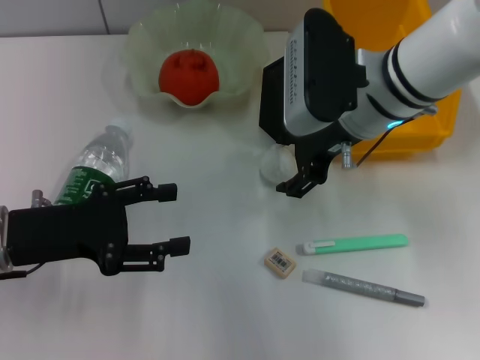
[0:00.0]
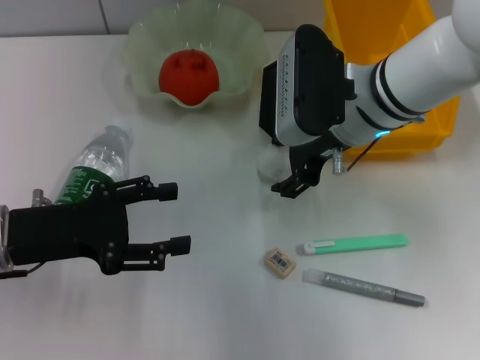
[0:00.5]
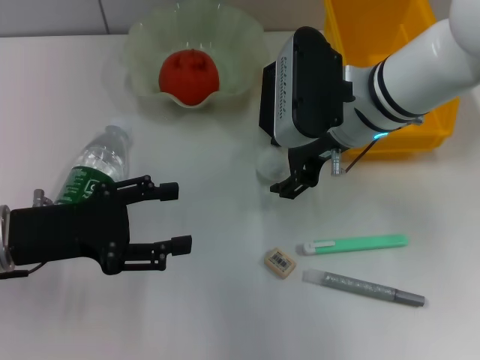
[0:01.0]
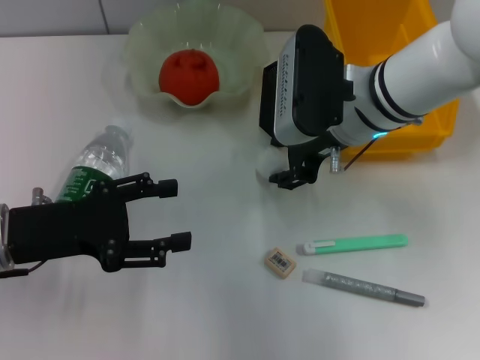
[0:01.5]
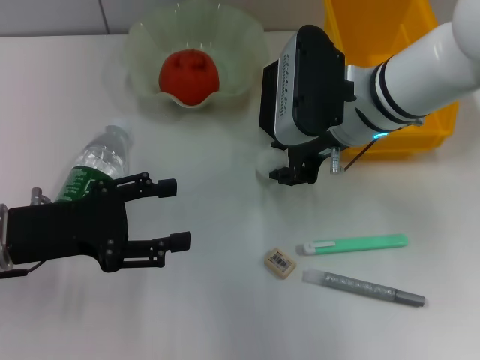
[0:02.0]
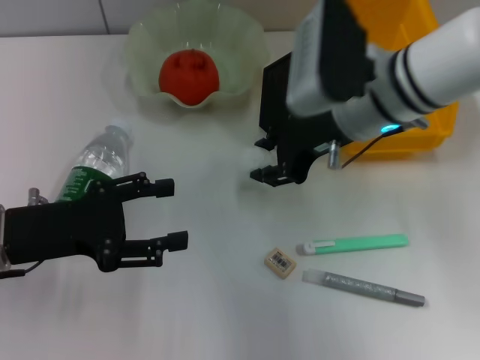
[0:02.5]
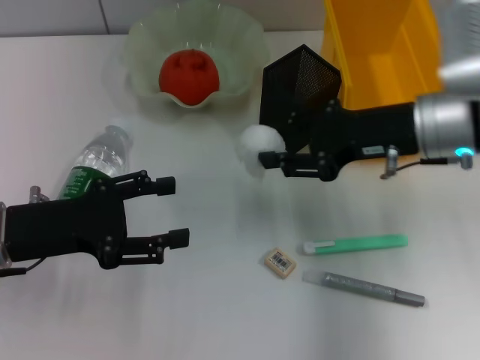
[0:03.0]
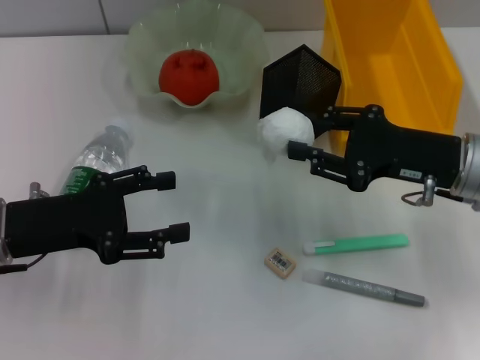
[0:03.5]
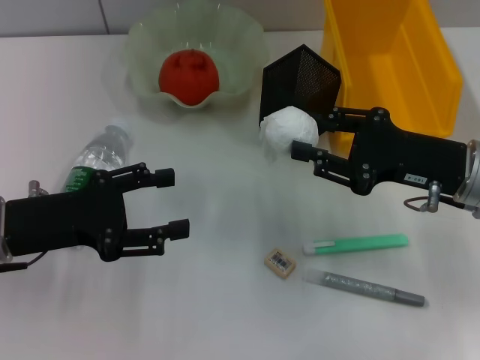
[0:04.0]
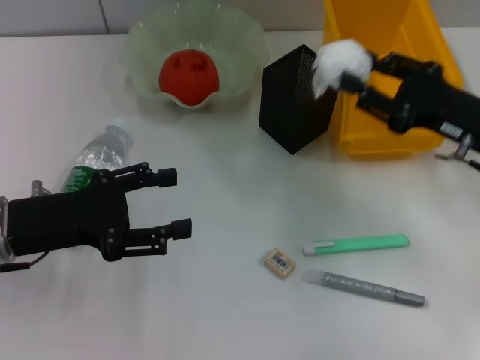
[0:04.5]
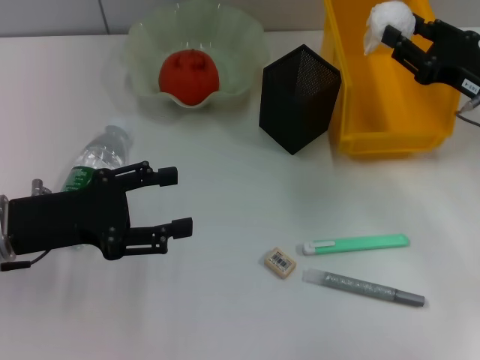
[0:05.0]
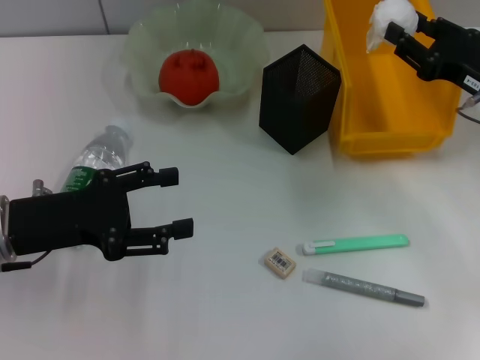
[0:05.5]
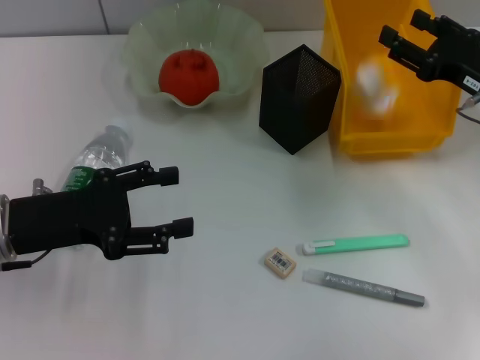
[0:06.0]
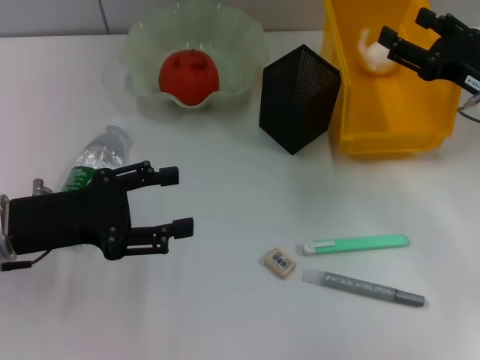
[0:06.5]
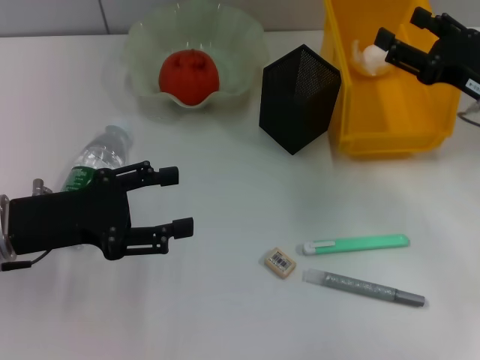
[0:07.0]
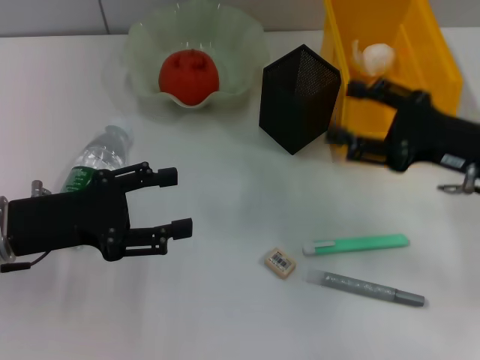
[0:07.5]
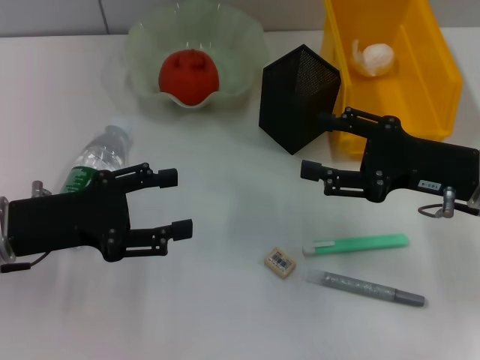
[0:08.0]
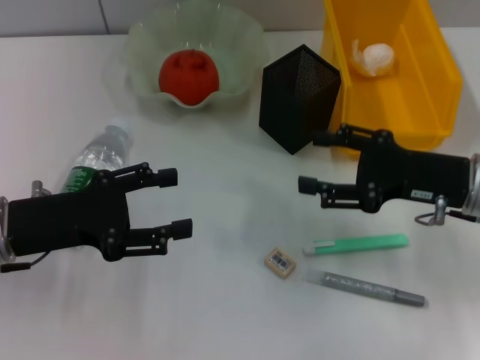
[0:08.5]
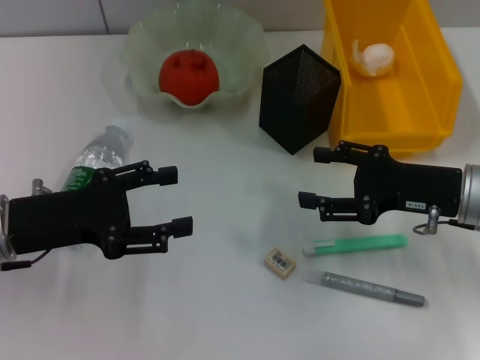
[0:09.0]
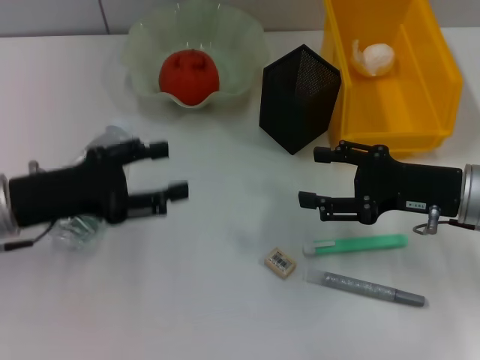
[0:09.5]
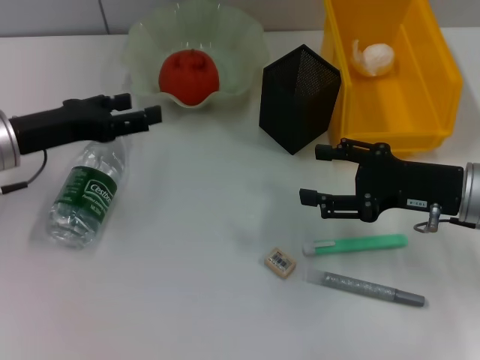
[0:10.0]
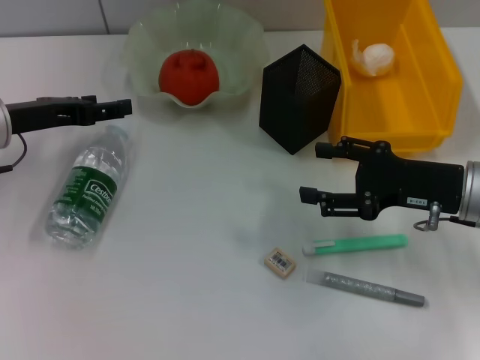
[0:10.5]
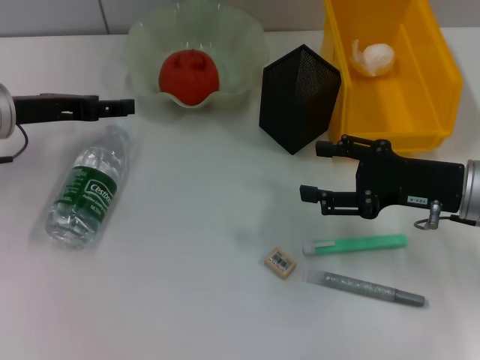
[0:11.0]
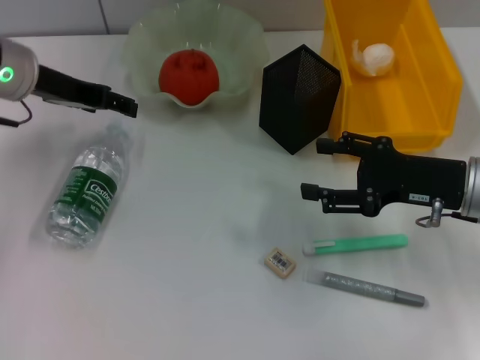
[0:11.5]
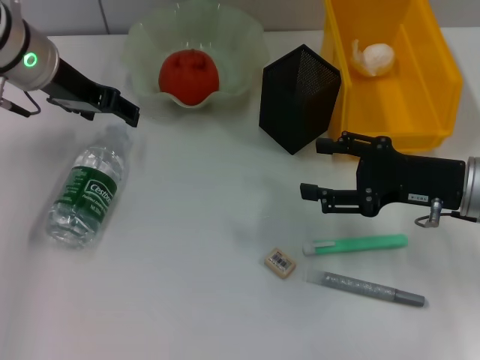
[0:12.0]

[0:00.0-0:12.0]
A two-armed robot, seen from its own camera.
Step, 0:01.5 to 0:06.0: Place the paper ball into the trash can with the right hand.
0:00.0 to 0:02.0: The right gripper closes up.
0:02.0 to 0:04.0: The right gripper goes some 15 cm to the right and backward.
0:04.0 to 0:06.0: The right gripper is displaced to the right and forward by approximately 10 cm.
0:06.0 to 0:08.0: The right gripper moves backward, roughly 5 cm, and opens.
0:08.0 to 0:10.0: The left gripper moves forward, approximately 10 cm.
0:10.0 to 0:12.0: The left gripper goes about 15 cm forward, upward and to the right.

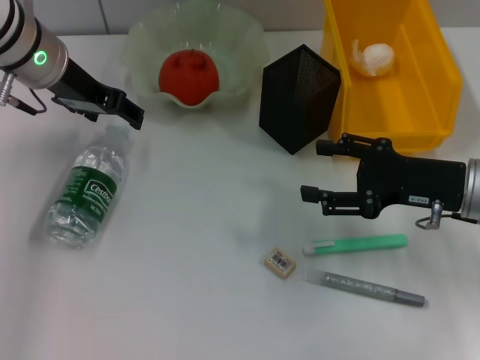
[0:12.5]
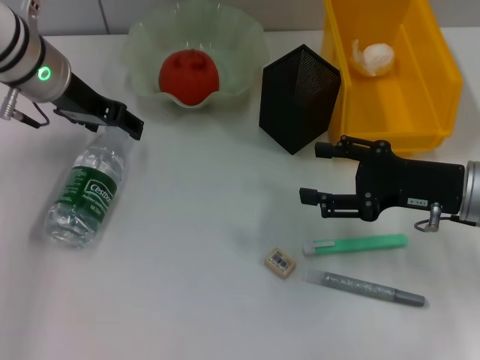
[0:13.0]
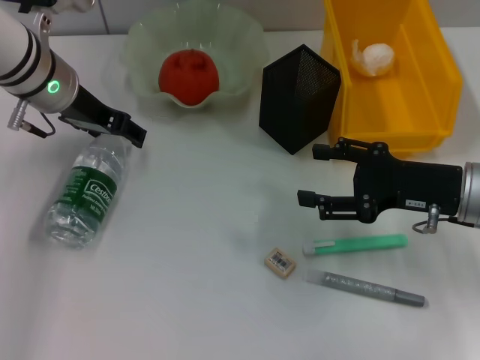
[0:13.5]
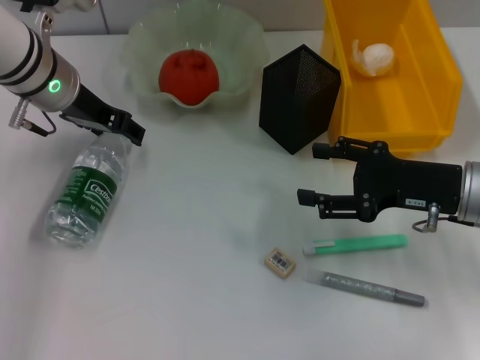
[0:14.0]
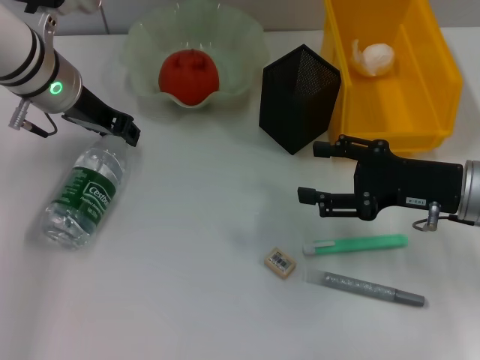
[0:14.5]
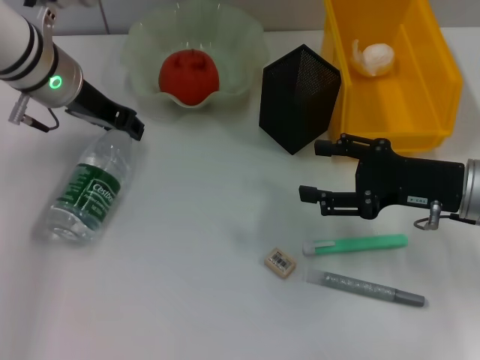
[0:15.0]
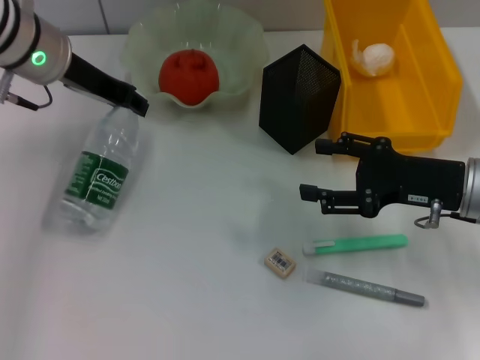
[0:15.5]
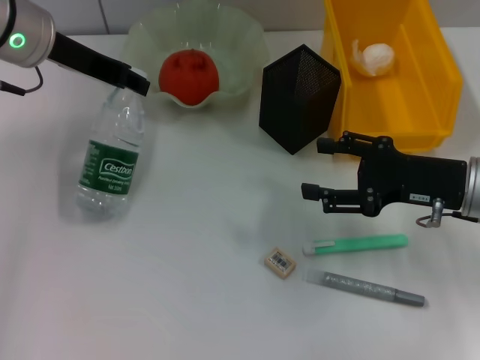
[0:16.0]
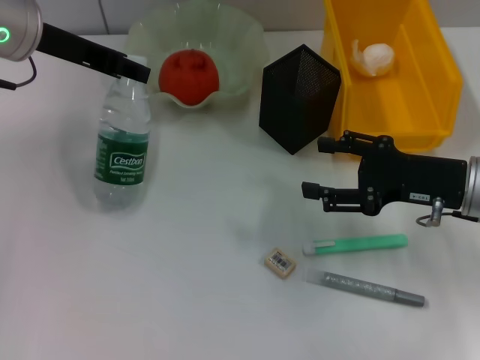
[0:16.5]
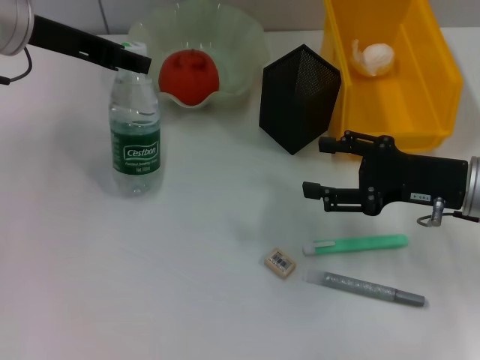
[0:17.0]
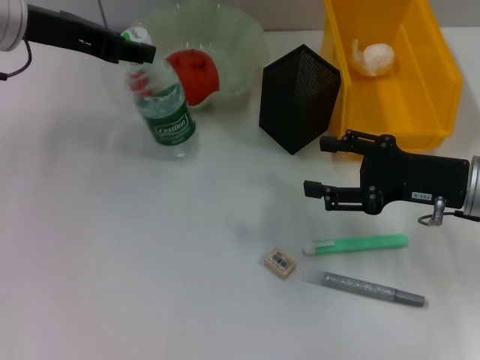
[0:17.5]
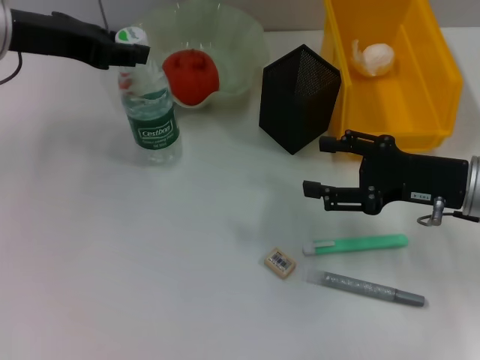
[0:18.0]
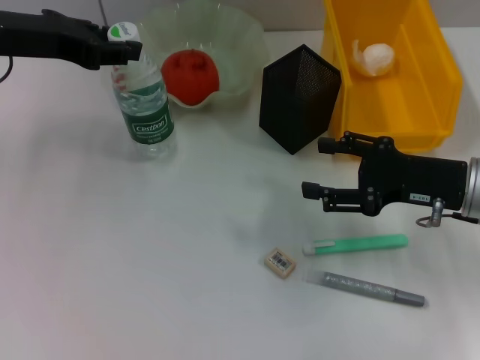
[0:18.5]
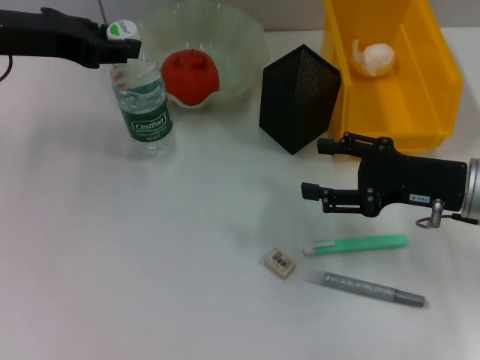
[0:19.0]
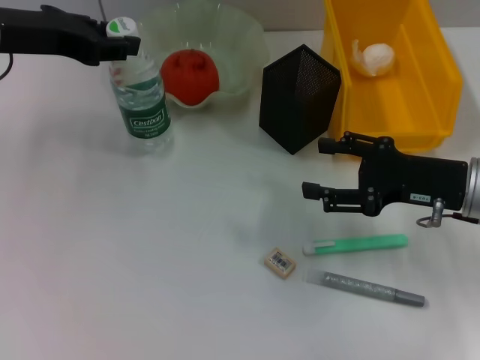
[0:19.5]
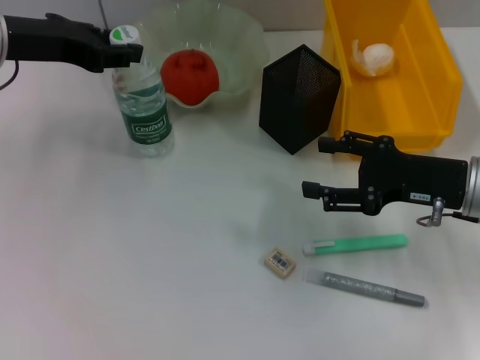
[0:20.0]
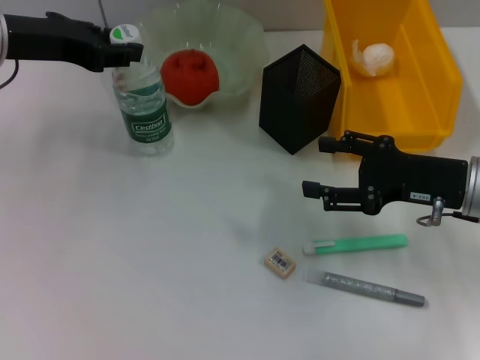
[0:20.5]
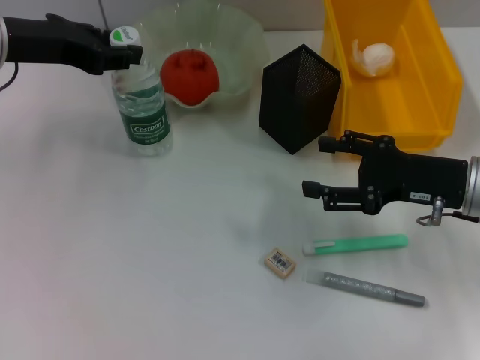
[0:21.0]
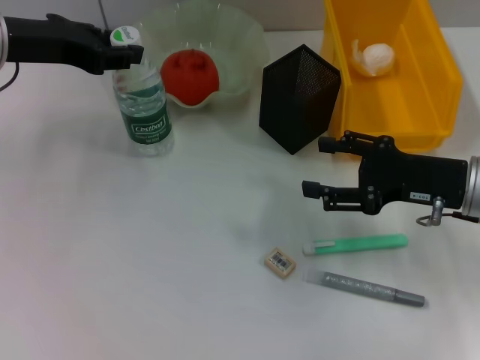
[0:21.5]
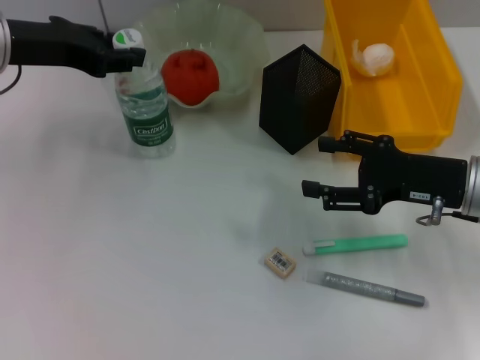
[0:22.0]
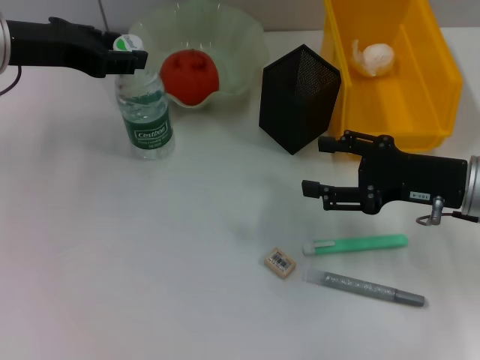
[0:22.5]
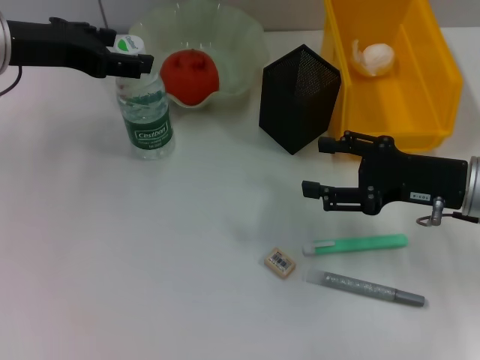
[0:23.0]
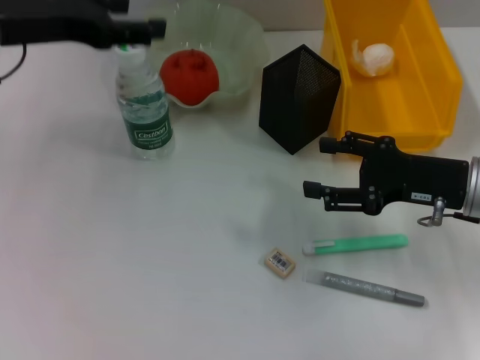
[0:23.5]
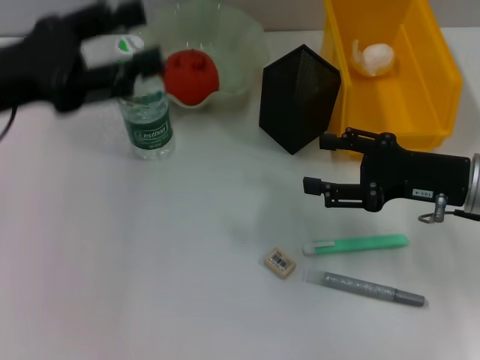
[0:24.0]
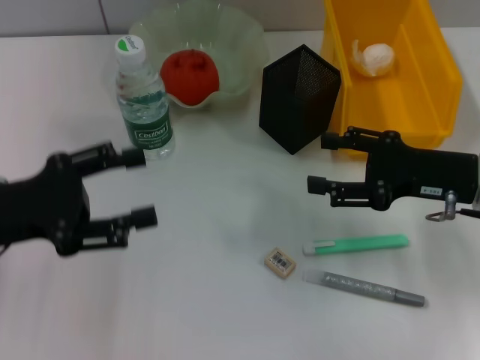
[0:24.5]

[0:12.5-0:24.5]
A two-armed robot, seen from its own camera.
Step, 0:14.5 to 0:22.5: Place the water bottle on the table with the left hand.
0:12.5 to 0:14.5: The left gripper closes up.
0:14.5 to 0:16.5: The left gripper goes about 5 cm upward.
0:16.5 to 0:18.5: The grippers make only small movements.
0:18.5 to 0:20.5: Neither gripper changes place.
0:20.5 to 0:22.5: The two grippers keep their place.
0:22.5 to 0:24.5: The left gripper shifts some 15 cm backward and downward, and opens its fingers.

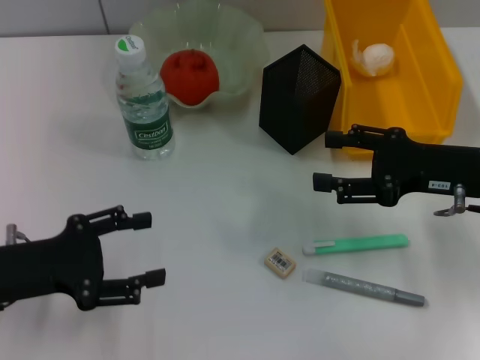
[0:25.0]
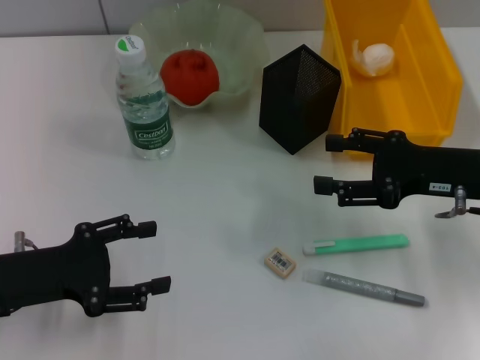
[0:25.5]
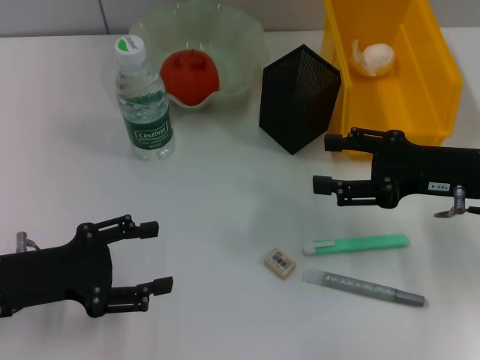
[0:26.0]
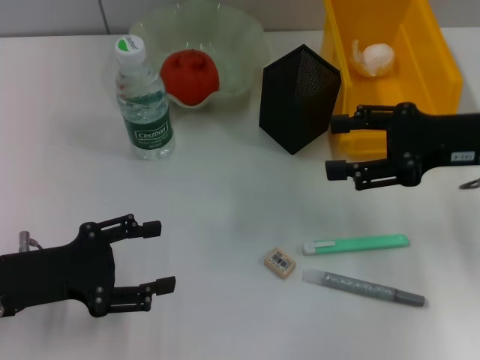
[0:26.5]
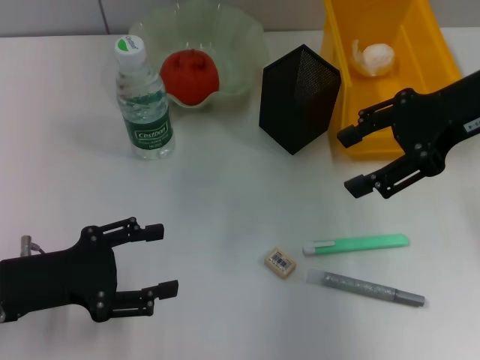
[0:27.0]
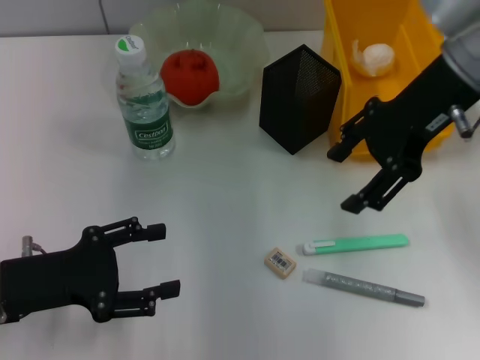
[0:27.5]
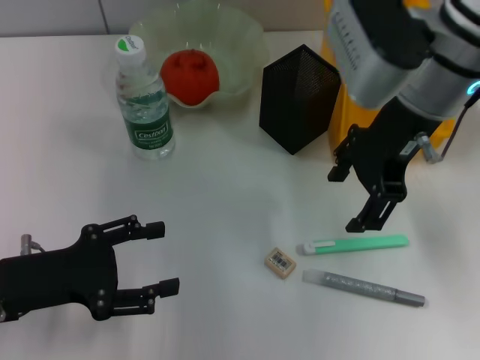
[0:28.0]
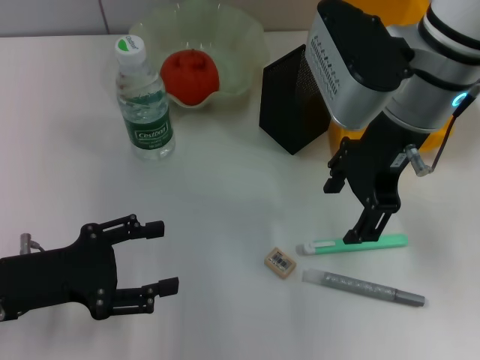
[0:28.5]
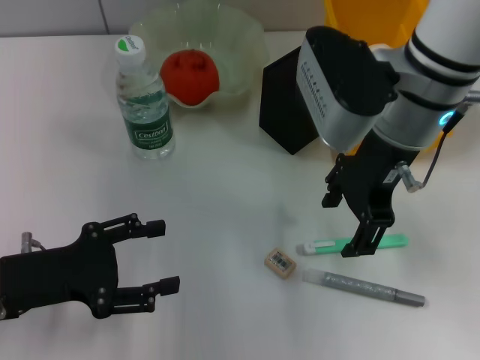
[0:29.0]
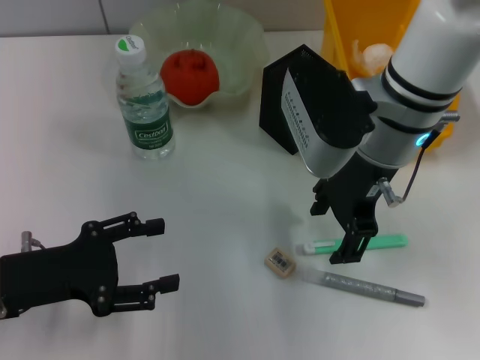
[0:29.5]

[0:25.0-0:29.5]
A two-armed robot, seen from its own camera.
0:25.0 to 0:27.0: The right gripper is displaced upward by roughly 10 cm.
0:27.0 to 0:29.5: The right gripper goes approximately 15 cm to the left.
